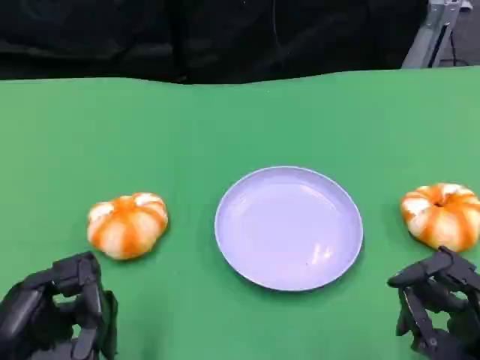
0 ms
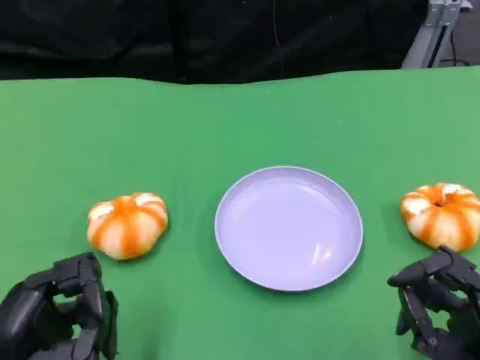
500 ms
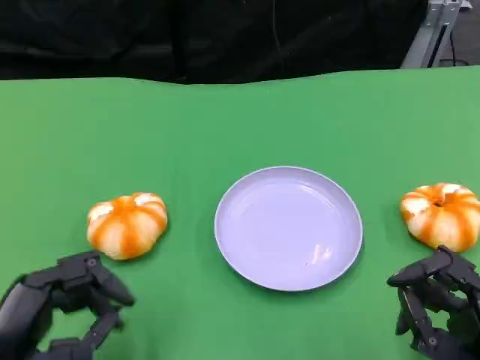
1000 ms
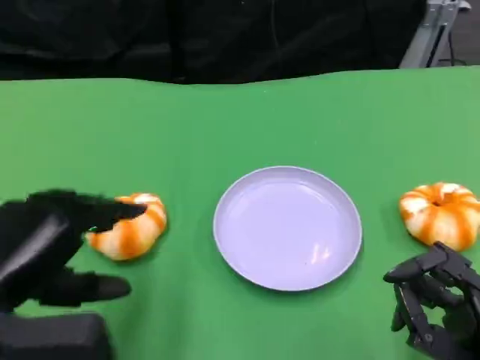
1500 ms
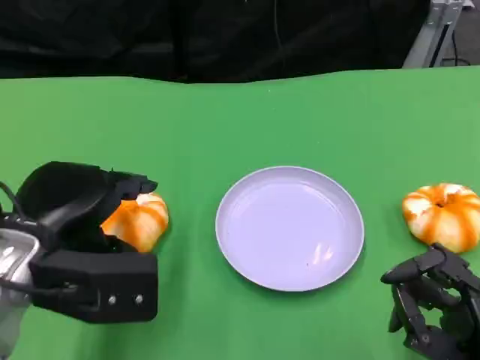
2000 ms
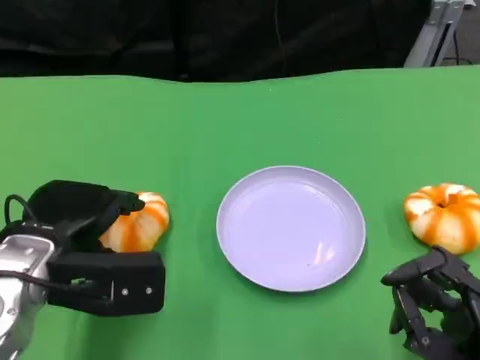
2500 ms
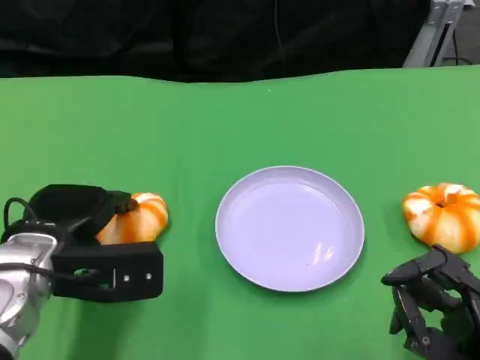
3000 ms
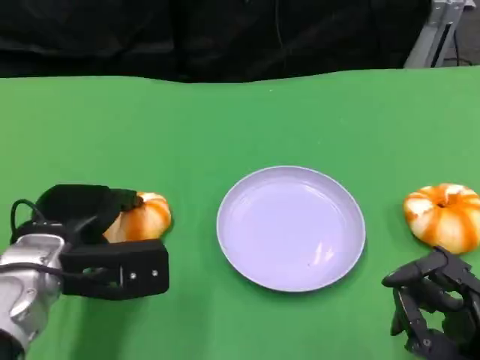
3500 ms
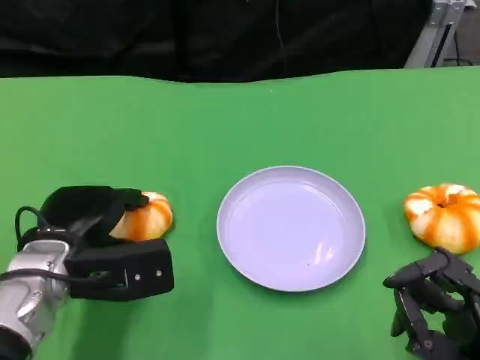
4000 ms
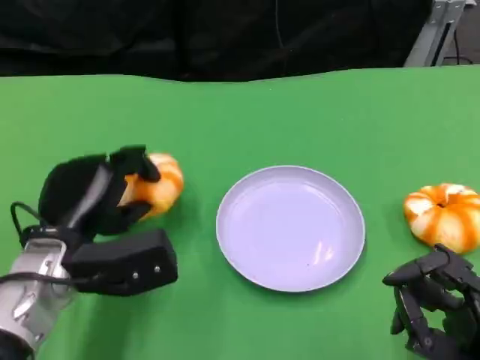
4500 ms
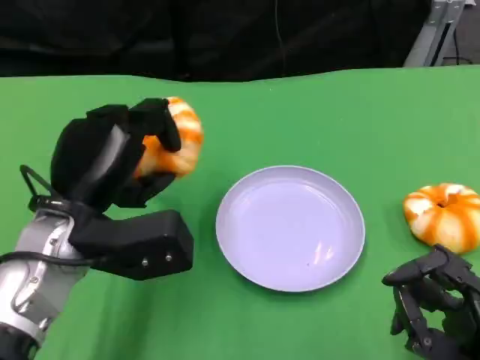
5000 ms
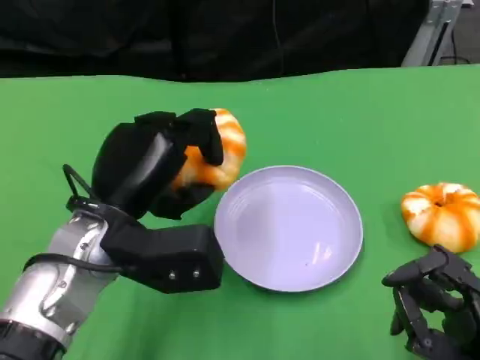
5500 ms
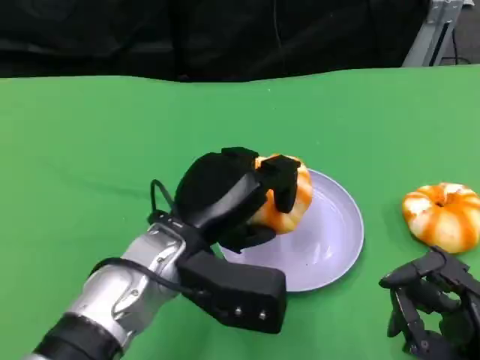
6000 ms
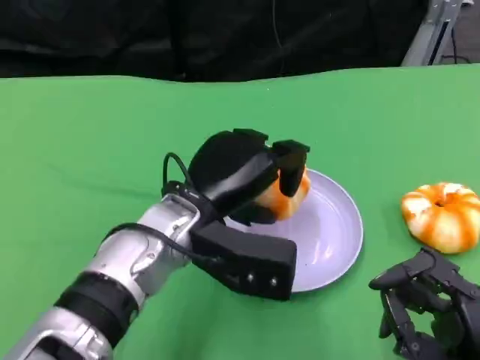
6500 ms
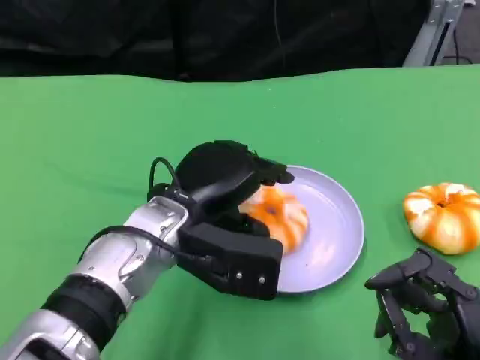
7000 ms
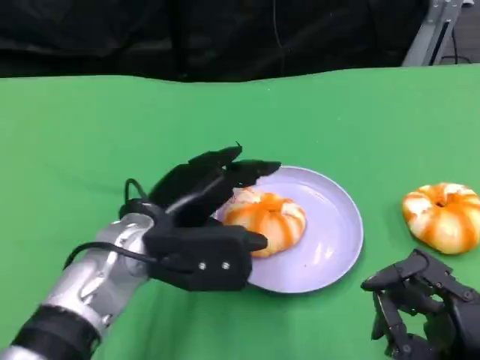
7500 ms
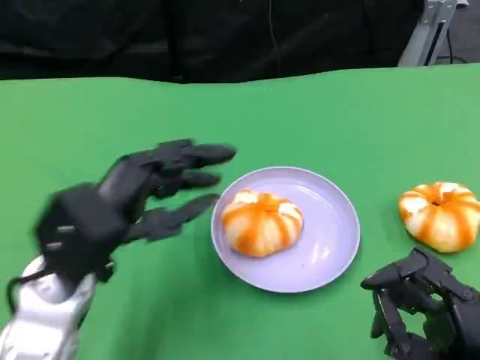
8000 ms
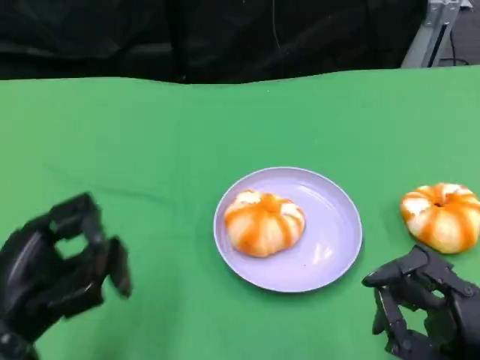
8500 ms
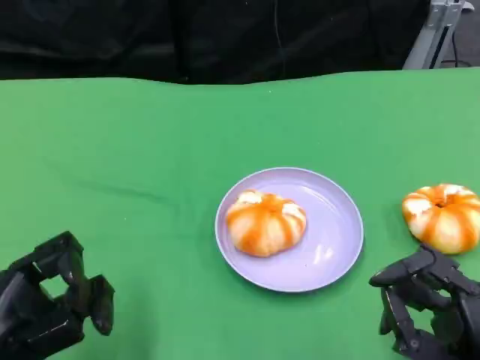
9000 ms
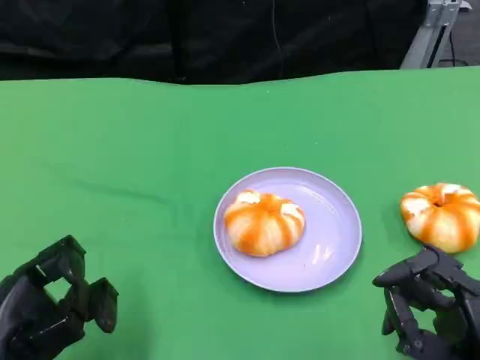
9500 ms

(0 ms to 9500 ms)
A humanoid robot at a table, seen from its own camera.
Task of the whole recording: Grasp the bread from the table and place it into the plate.
0 ms - 2000 ms: The left hand travels forward and upward by approximately 10 cm.
2000 ms - 4000 ms: The left hand shifts some 5 cm downward.
4000 ms - 5500 ms: The left hand travels upward and to the right by roughly 10 cm.
7500 ms - 9500 ms: The left hand is displaced to the left and backward by approximately 20 cm.

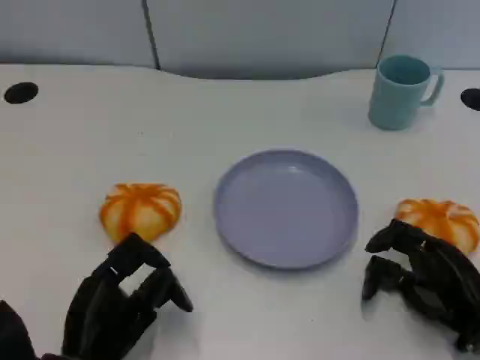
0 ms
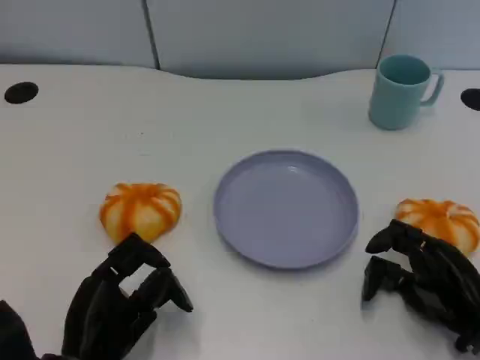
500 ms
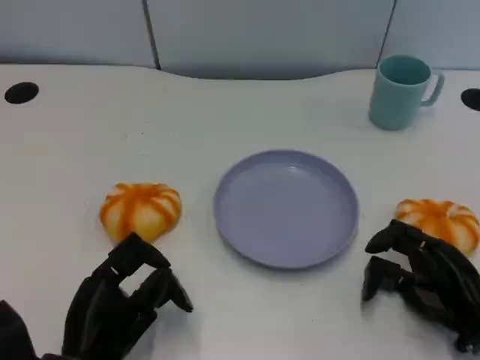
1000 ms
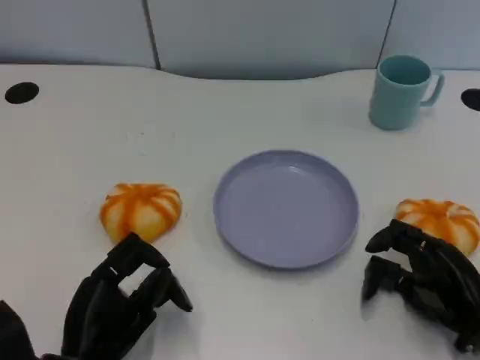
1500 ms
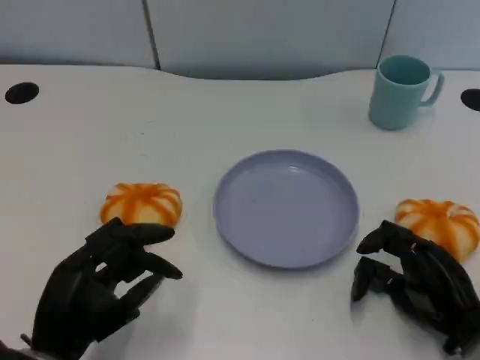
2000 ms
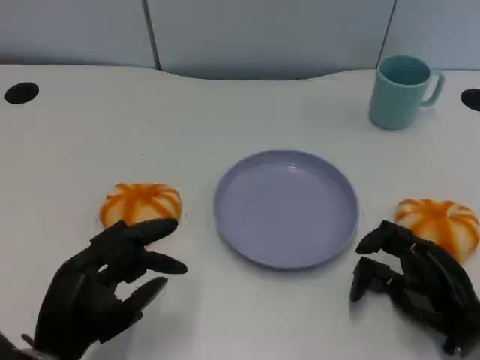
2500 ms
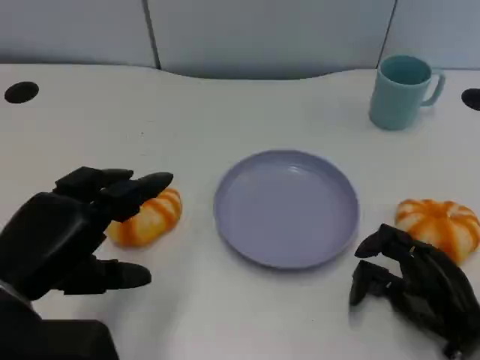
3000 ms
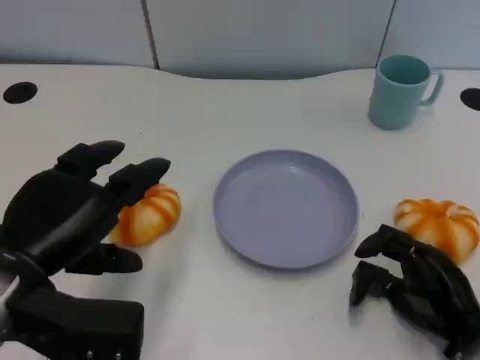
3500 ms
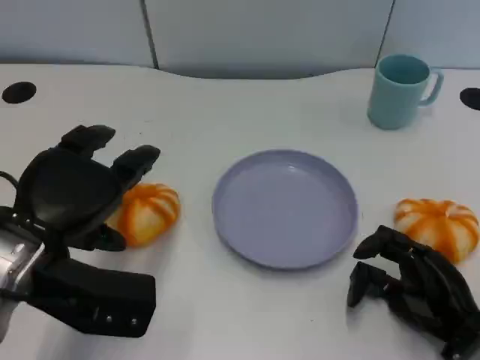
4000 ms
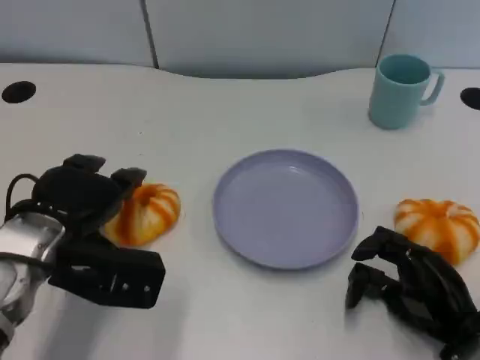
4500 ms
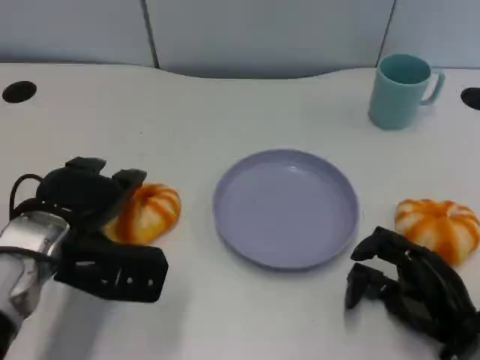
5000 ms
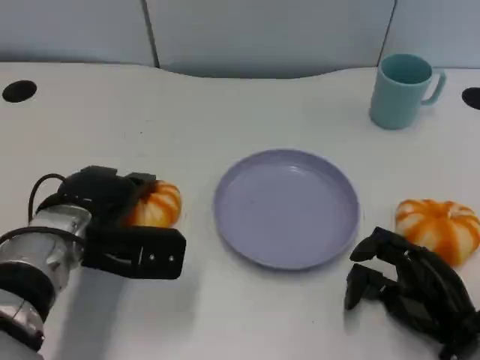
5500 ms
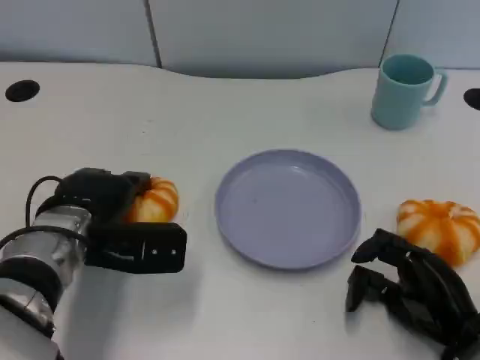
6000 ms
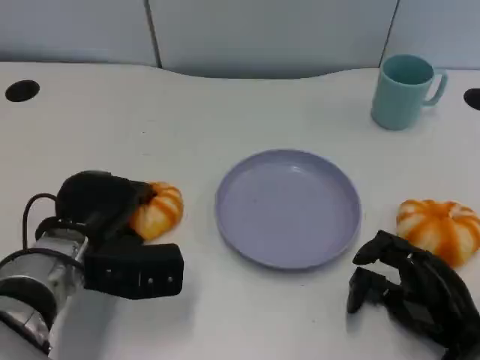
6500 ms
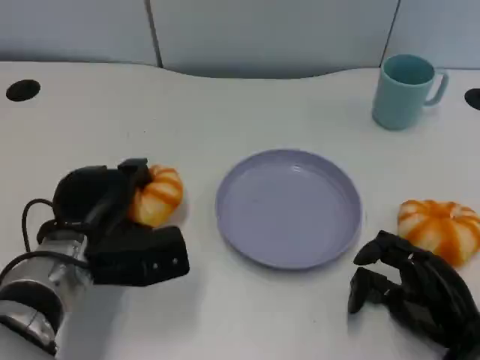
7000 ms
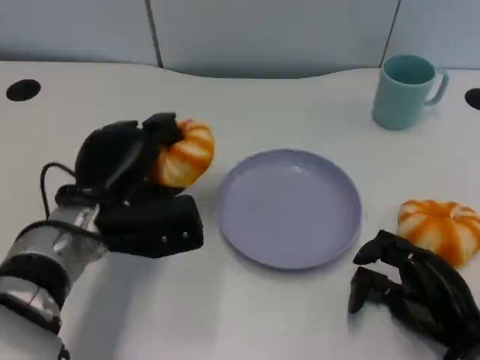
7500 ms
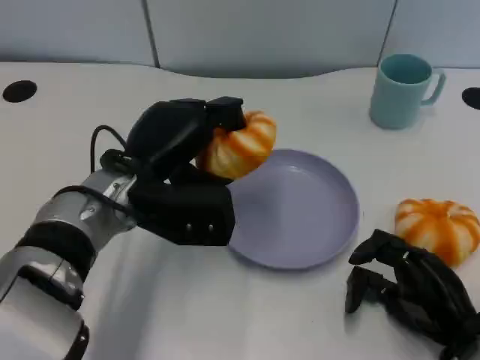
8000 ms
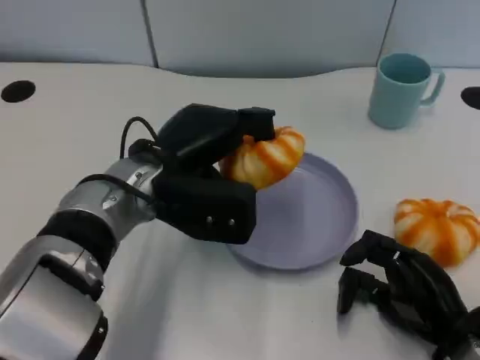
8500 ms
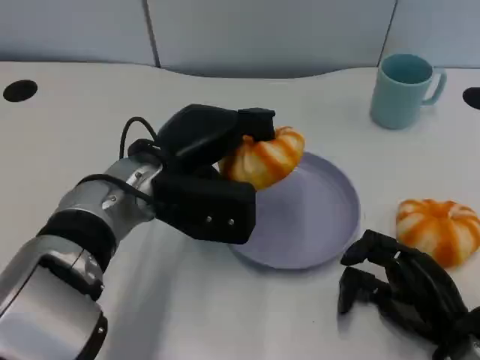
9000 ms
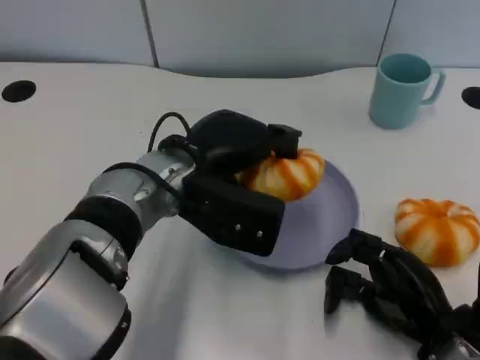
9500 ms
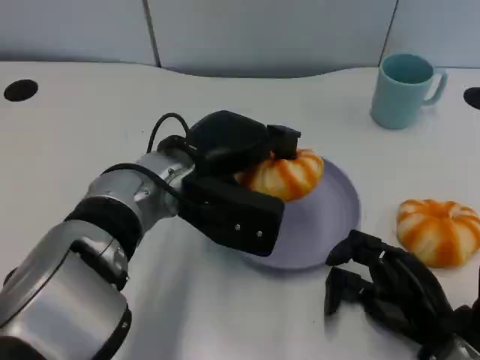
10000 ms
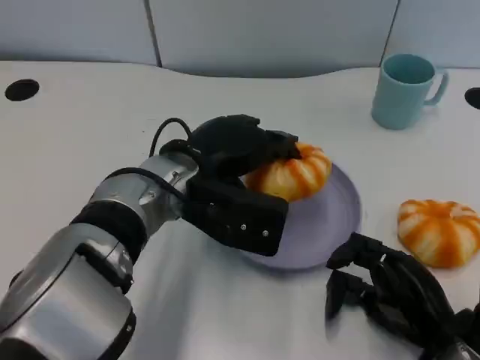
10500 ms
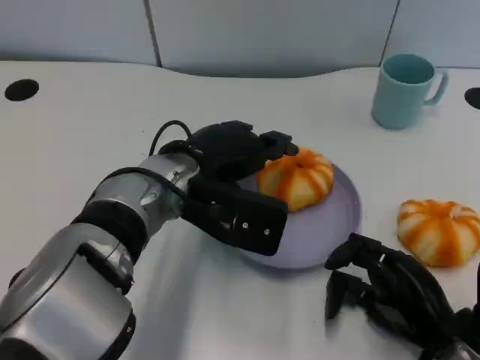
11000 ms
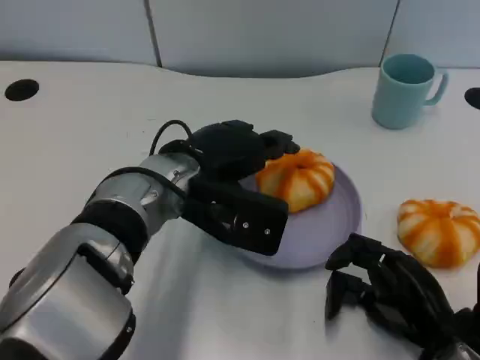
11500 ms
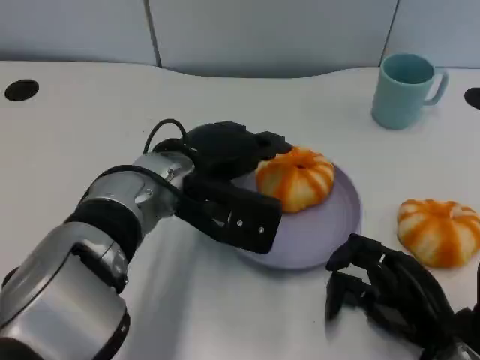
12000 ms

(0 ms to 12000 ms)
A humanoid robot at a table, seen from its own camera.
Task of the whole recording: Grasp the bread from the table and place it into the plate.
2000 ms - 4000 ms: The left hand moves upward and forward, about 15 cm.
4000 ms - 6000 ms: The left hand goes roughly 10 cm downward and forward.
6000 ms - 8000 ms: The left hand goes roughly 5 cm to the right.
10000 ms - 12000 ms: The hands move only a little.

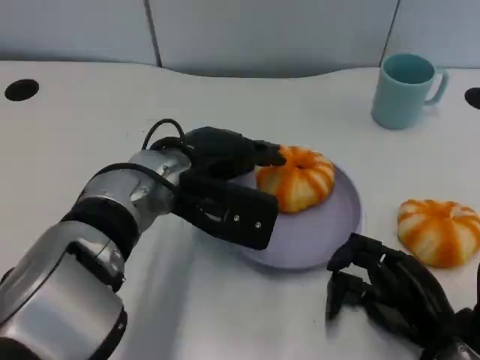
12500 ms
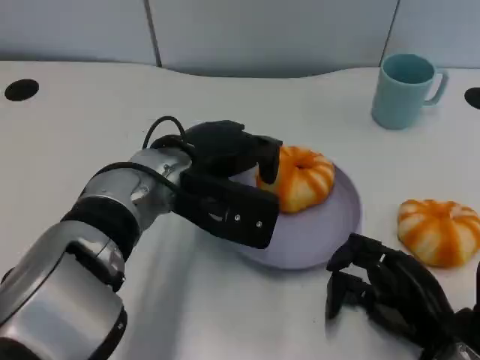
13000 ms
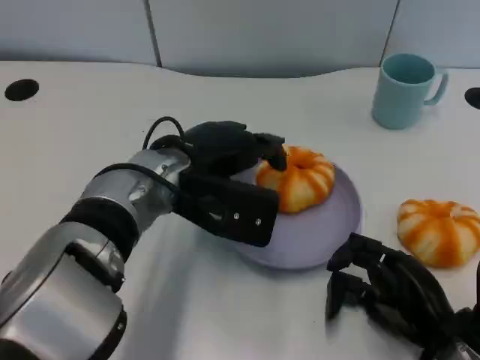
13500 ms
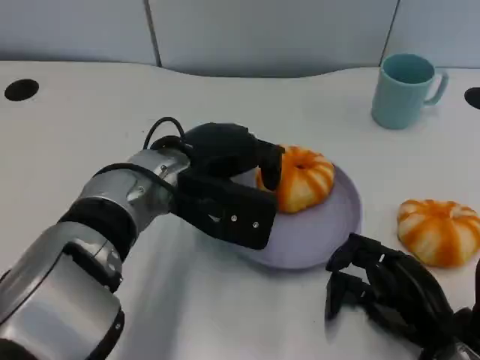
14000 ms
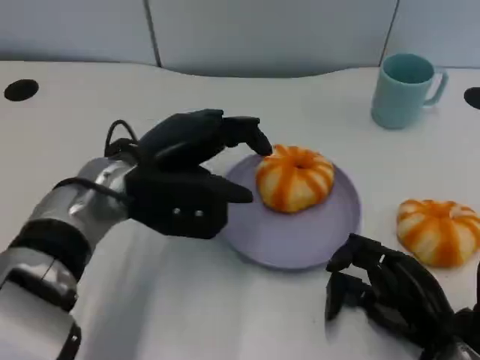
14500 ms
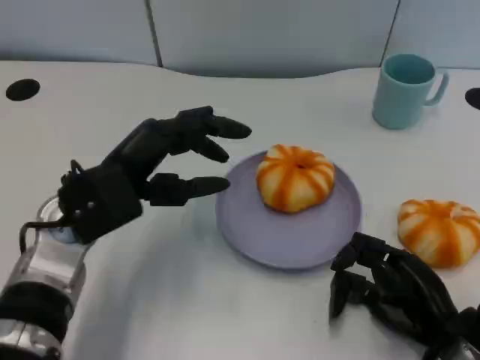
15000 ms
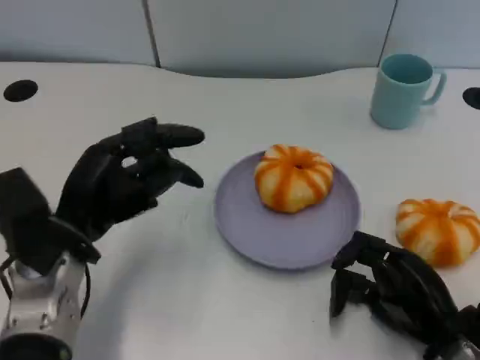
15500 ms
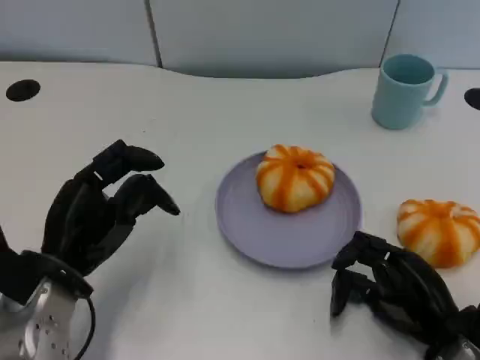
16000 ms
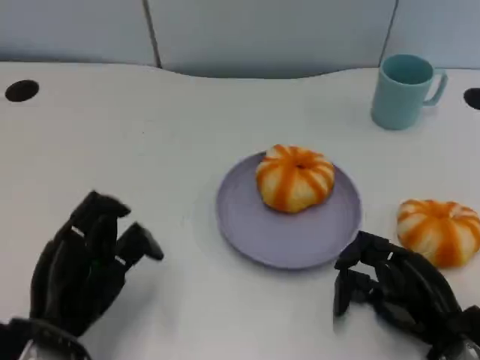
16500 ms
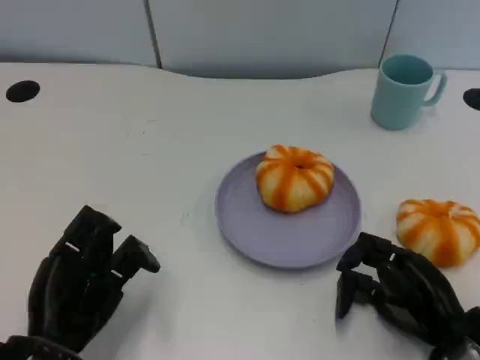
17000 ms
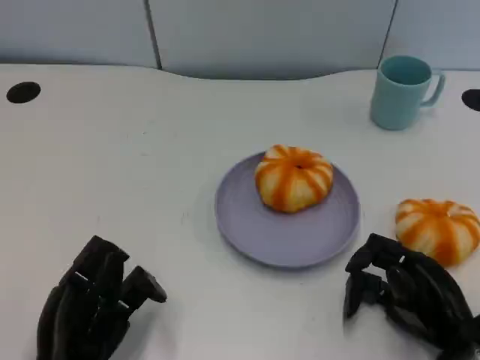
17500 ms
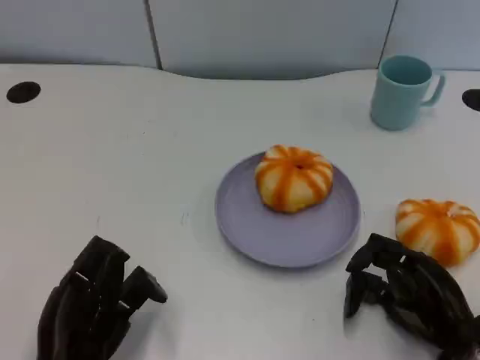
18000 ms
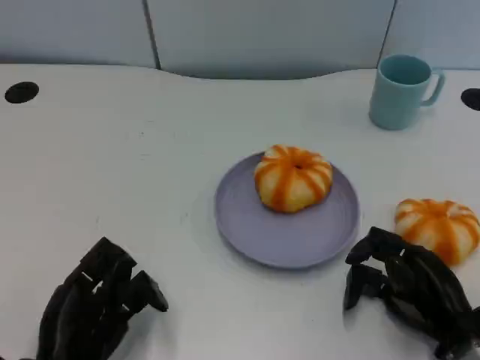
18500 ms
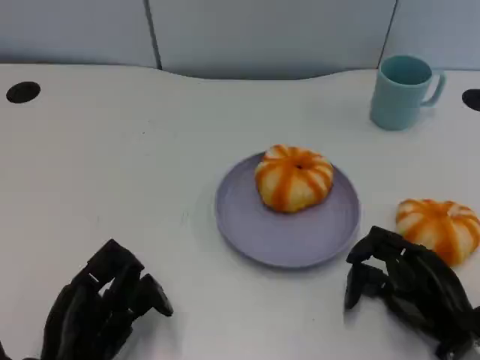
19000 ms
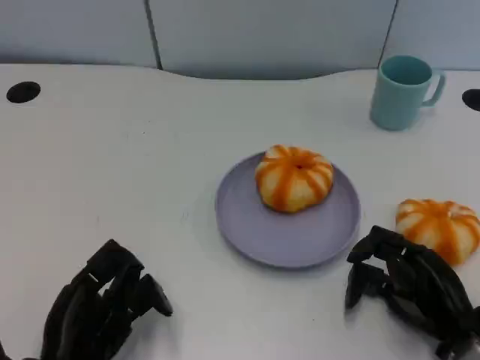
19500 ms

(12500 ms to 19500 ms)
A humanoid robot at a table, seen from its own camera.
Task of the whole recording: Grasp the bread from the table and place it into the plate.
14500 ms - 16000 ms: The left hand heads to the left, backward and downward, covering about 10 cm.
16000 ms - 17500 ms: The left hand moves backward, roughly 10 cm.
17500 ms - 19500 ms: There are only small adjustments of the hands.
